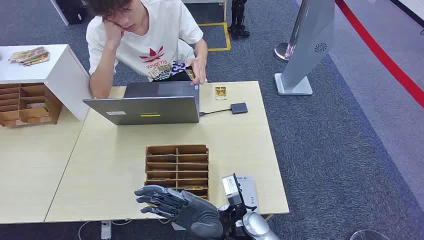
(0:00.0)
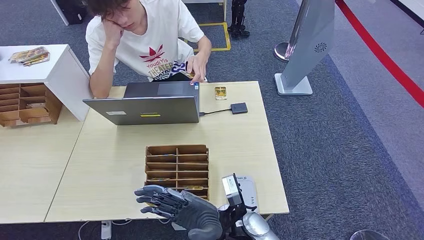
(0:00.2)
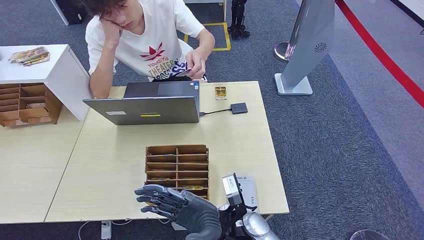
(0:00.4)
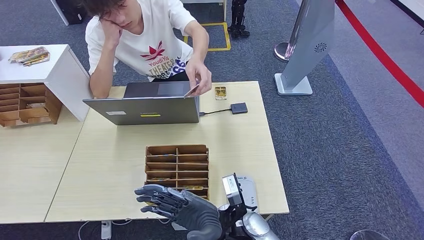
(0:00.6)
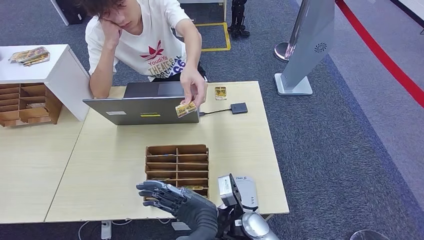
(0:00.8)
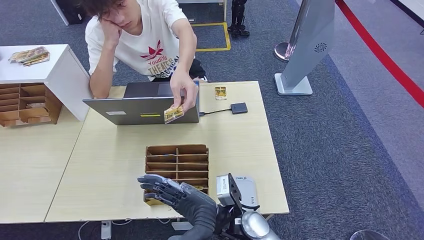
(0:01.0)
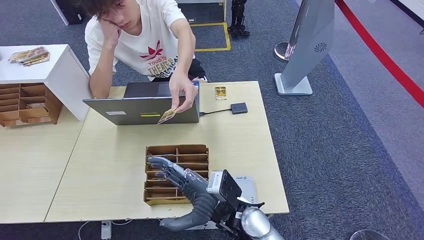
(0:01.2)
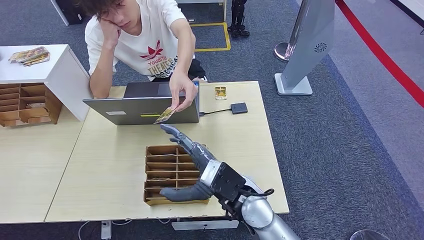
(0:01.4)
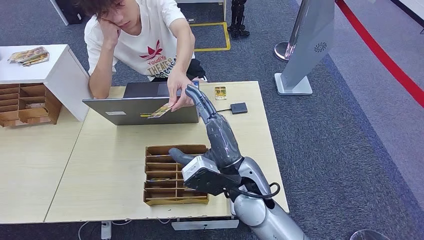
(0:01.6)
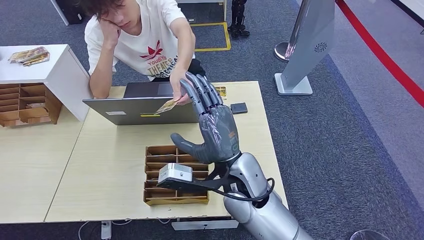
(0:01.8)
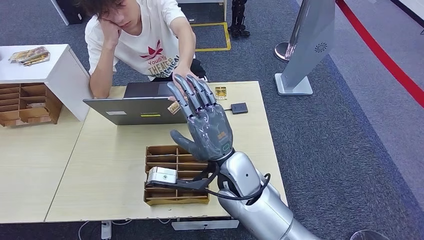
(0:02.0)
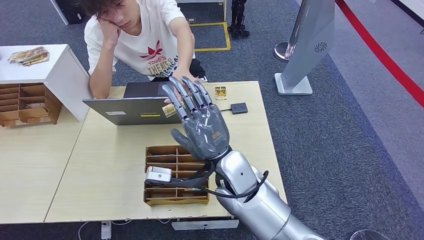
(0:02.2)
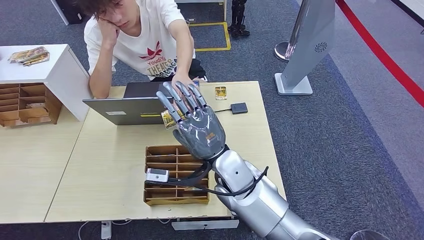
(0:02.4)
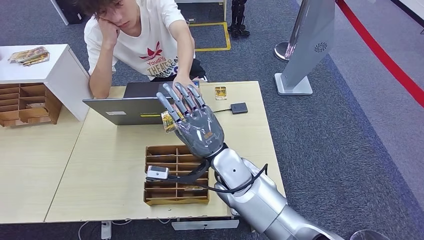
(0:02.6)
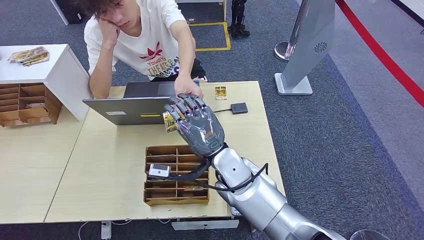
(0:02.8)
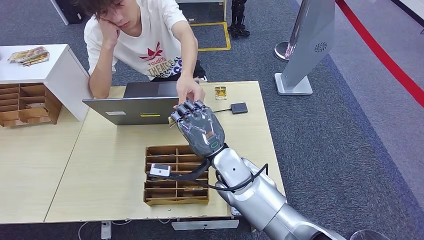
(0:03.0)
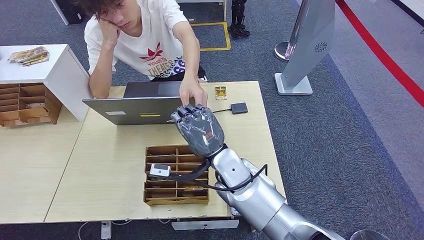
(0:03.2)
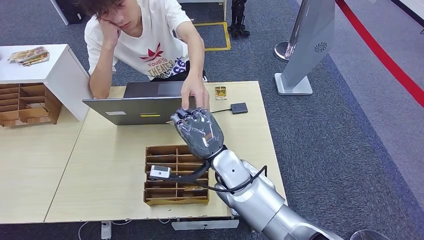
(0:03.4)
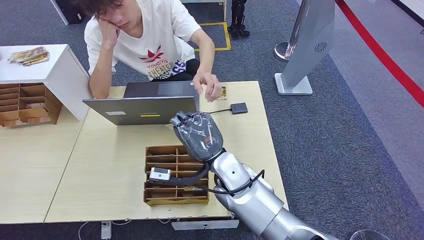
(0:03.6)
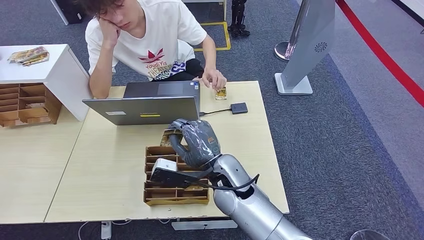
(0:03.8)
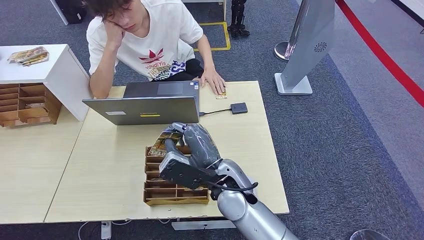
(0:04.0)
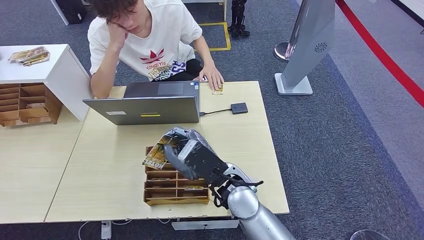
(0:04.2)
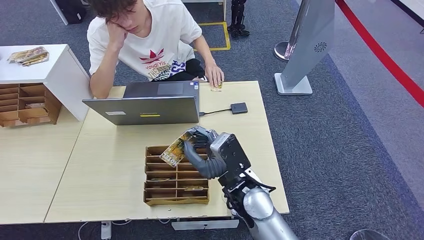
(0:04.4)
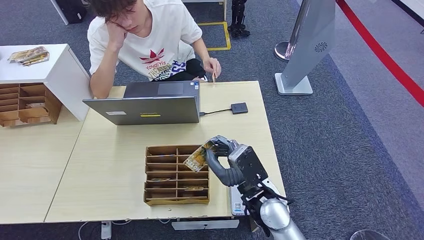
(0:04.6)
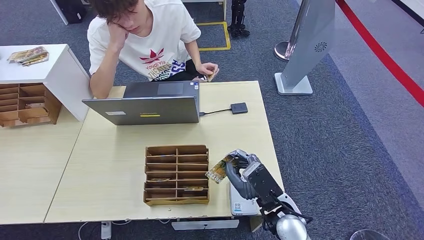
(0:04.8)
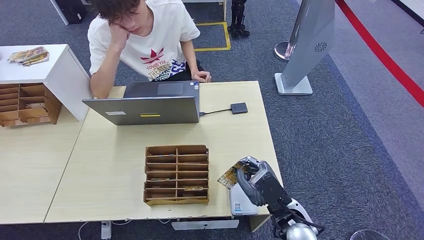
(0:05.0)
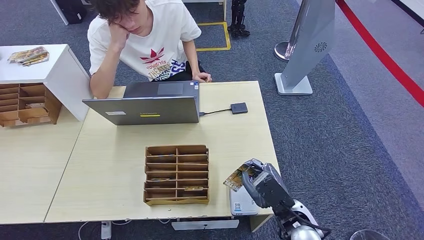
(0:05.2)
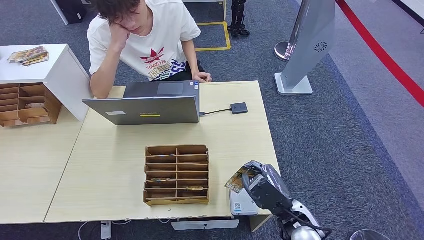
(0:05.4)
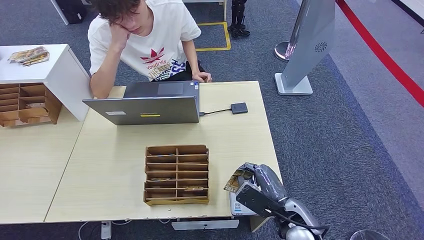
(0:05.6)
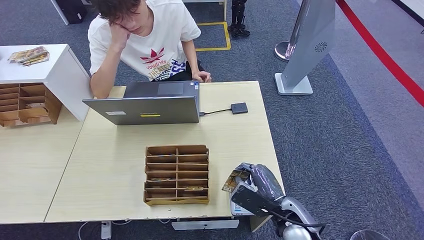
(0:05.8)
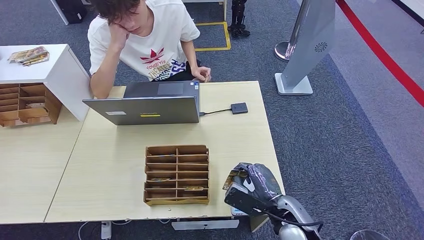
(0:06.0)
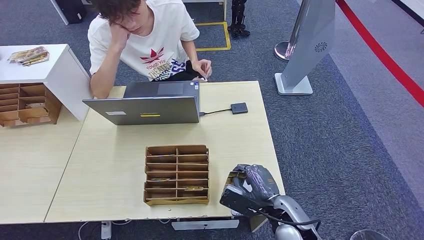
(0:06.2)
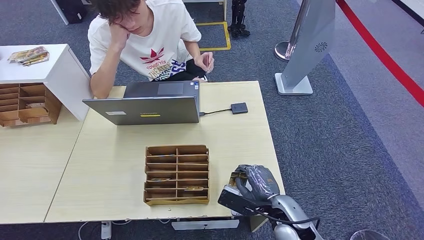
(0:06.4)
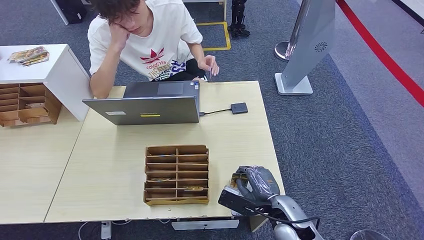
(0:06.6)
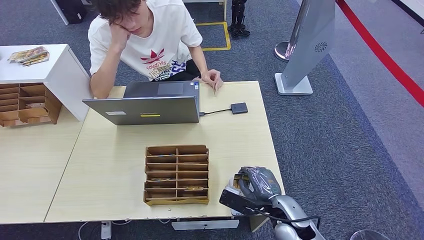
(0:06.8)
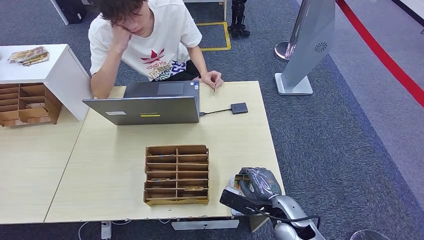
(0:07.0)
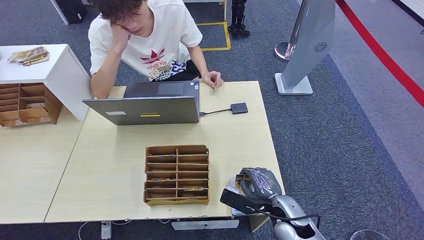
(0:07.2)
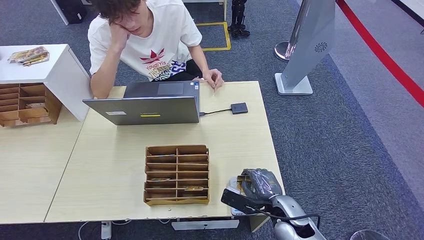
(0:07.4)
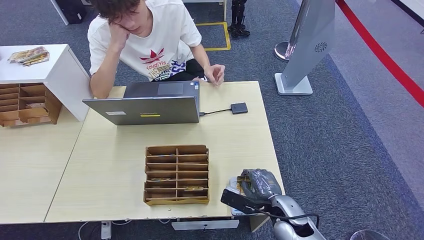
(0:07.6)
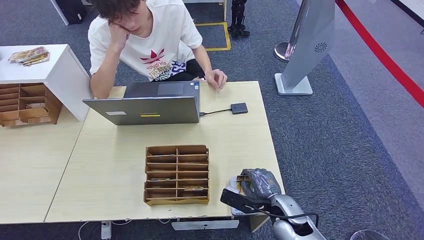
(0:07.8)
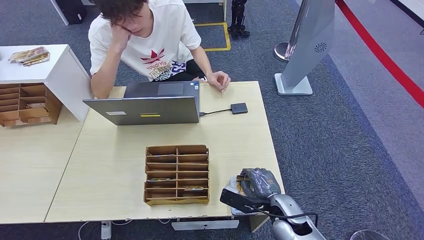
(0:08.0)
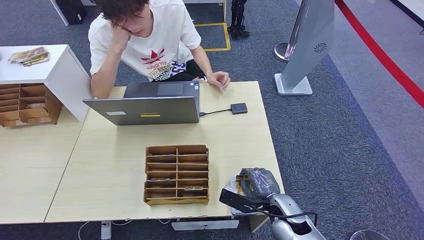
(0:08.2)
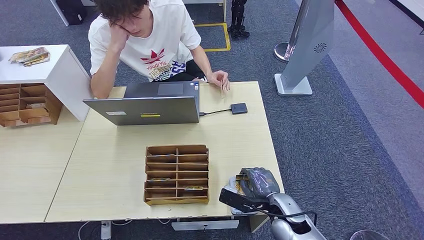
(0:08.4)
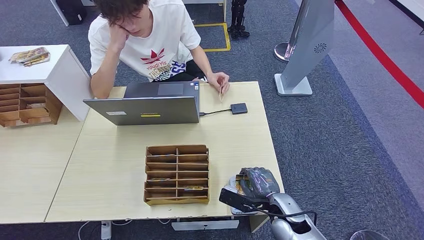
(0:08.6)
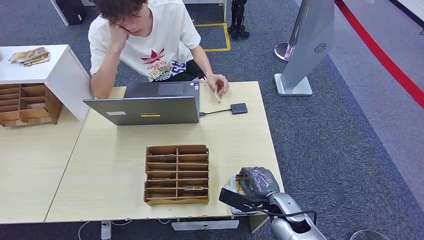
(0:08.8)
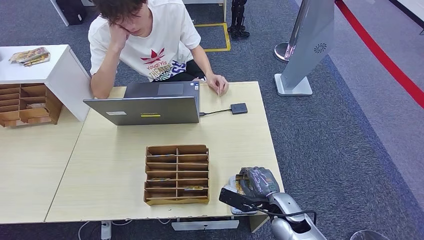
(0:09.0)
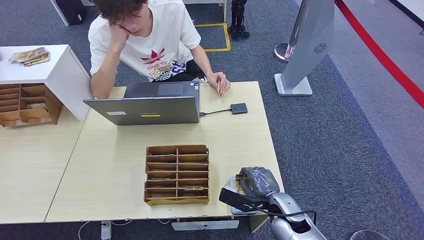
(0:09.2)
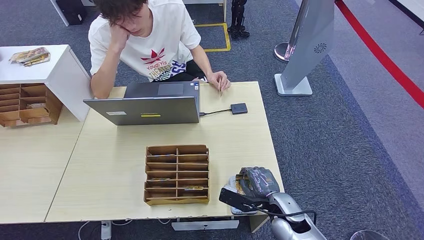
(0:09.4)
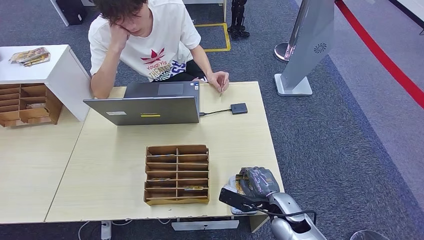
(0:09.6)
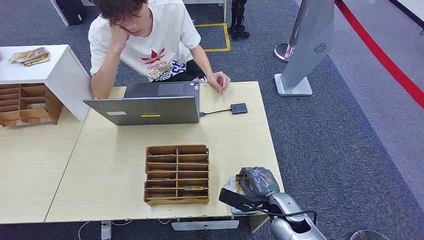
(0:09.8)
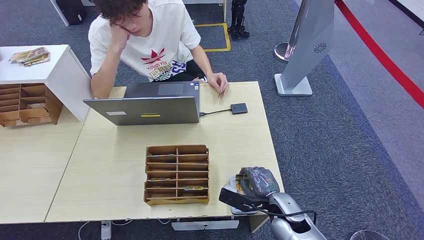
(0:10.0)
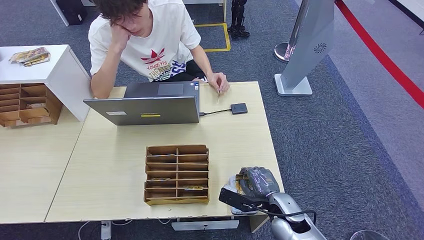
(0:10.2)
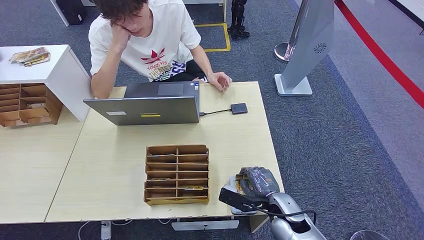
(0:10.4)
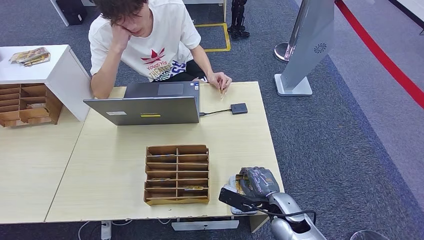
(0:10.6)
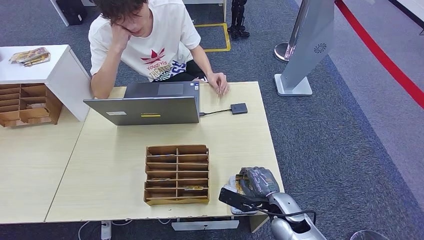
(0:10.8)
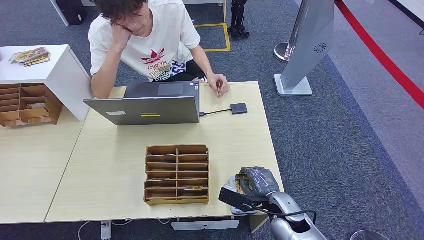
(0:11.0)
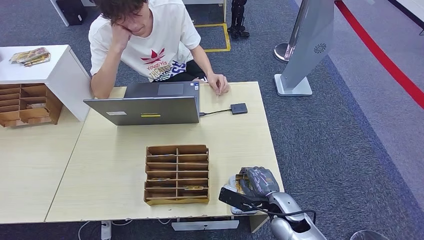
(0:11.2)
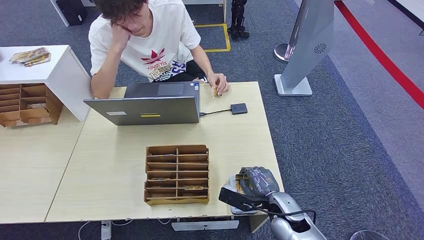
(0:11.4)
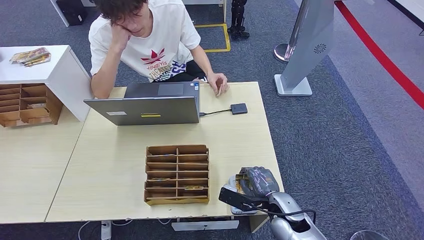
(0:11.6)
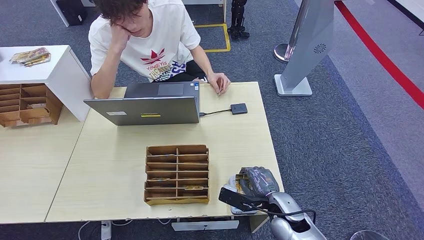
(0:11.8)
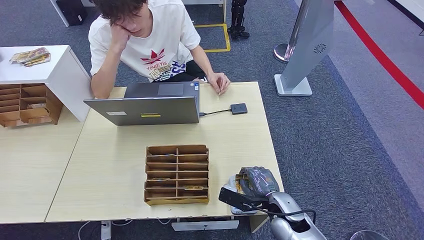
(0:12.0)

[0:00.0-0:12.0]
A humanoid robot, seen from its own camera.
Step, 0:00.0 to 0:04.6: Take the ID card from the person's hand.
Step, 0:04.8 to 0:09.2: Place the ID card on the card reader.
0:01.6 to 0:03.0: The right hand goes roughly 5 cm forward.
0:03.0 to 0:04.4: The right hand moves backward, roughly 5 cm.
0:04.4 to 0:06.0: The right hand is displaced to the right and downward by approximately 15 cm.
0:07.6 to 0:12.0: The two hands keep their place.

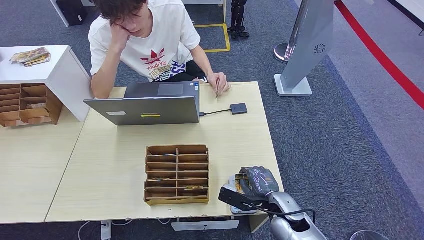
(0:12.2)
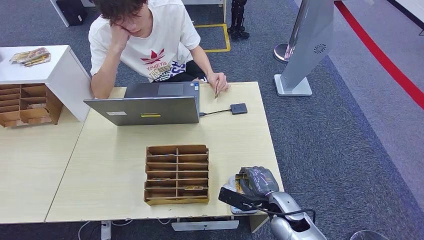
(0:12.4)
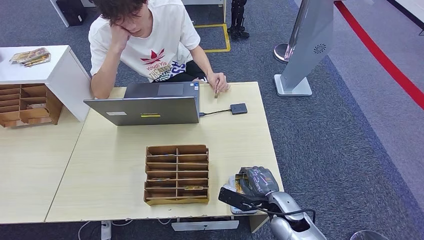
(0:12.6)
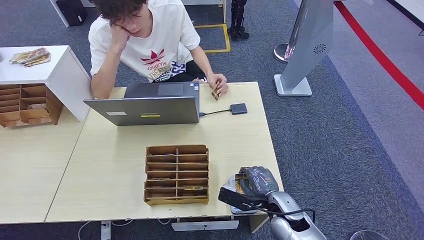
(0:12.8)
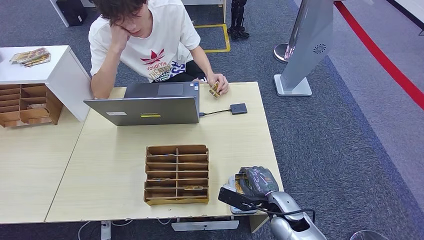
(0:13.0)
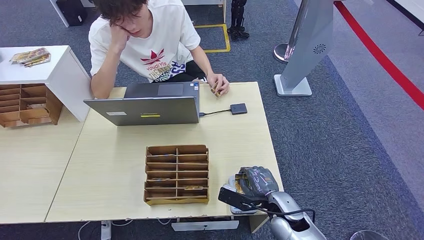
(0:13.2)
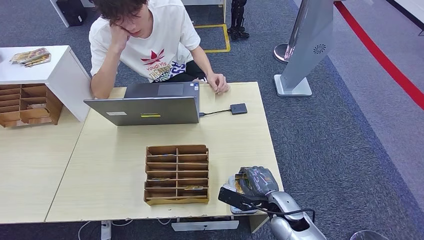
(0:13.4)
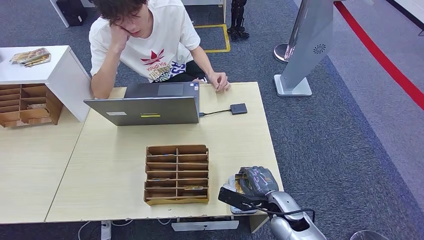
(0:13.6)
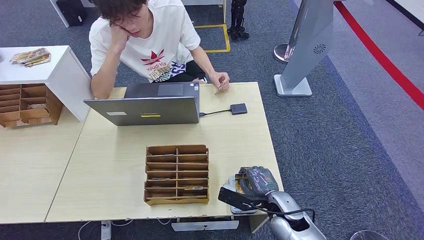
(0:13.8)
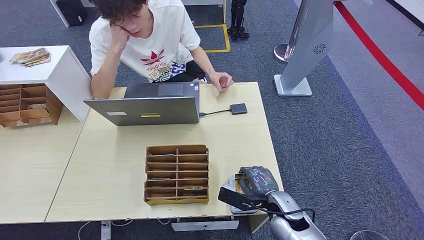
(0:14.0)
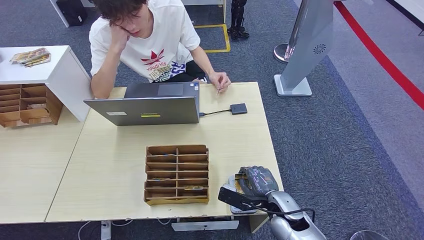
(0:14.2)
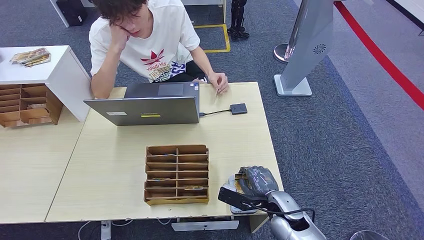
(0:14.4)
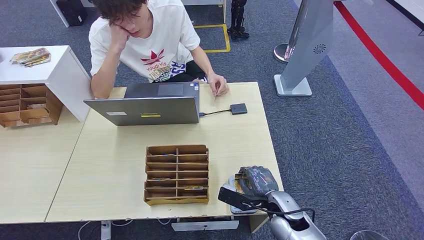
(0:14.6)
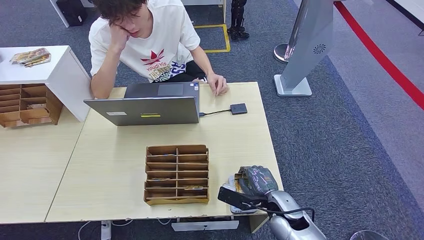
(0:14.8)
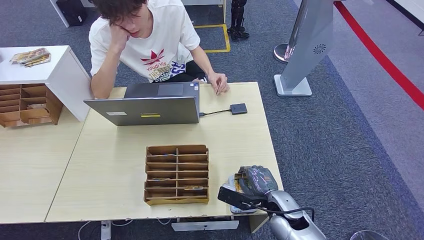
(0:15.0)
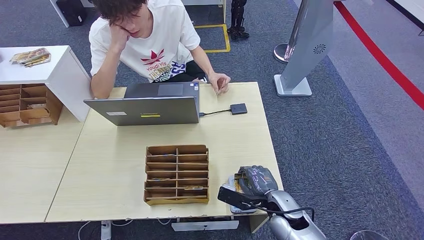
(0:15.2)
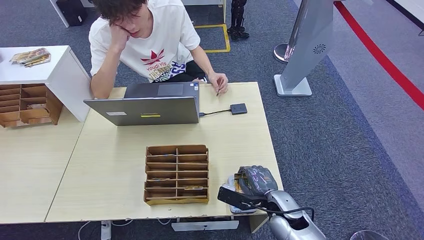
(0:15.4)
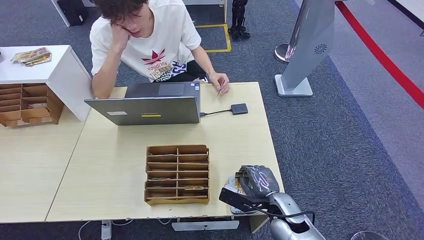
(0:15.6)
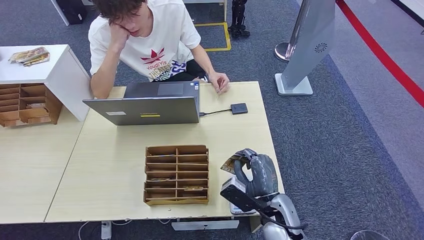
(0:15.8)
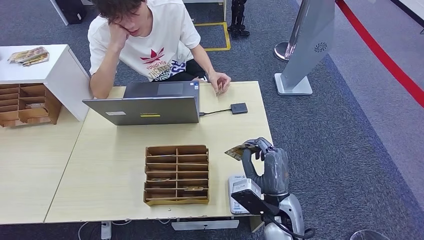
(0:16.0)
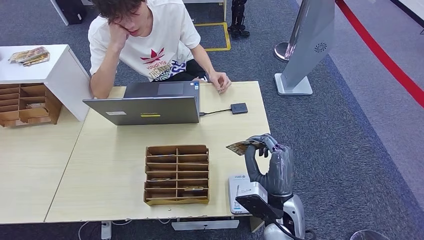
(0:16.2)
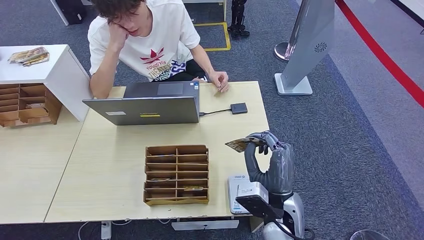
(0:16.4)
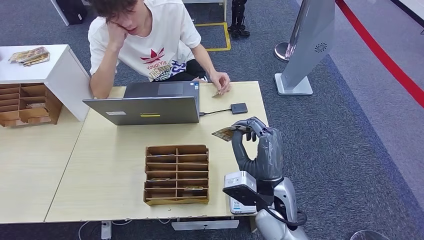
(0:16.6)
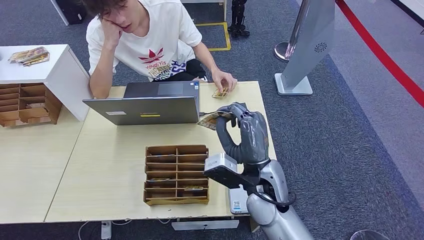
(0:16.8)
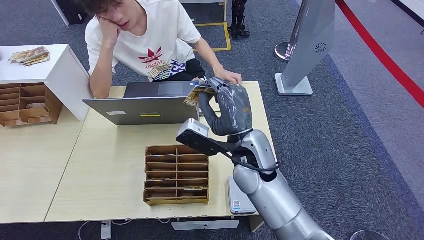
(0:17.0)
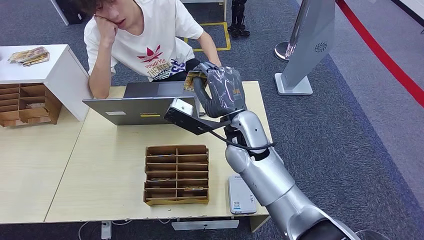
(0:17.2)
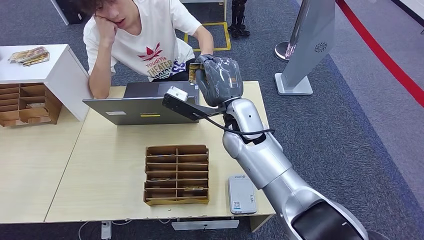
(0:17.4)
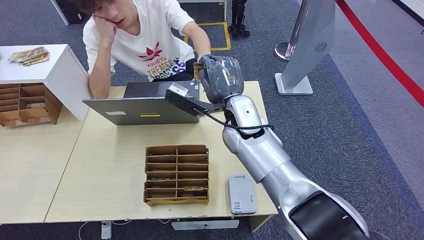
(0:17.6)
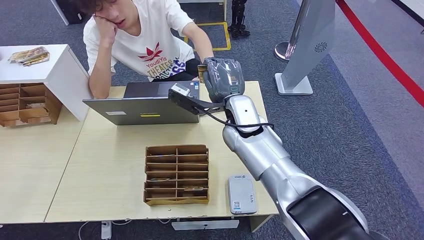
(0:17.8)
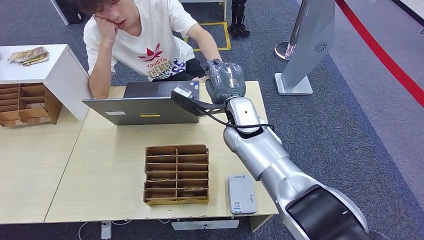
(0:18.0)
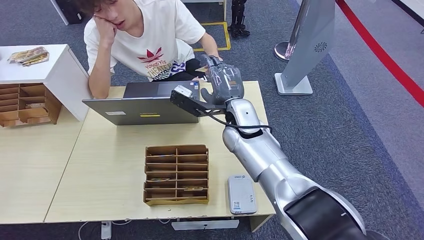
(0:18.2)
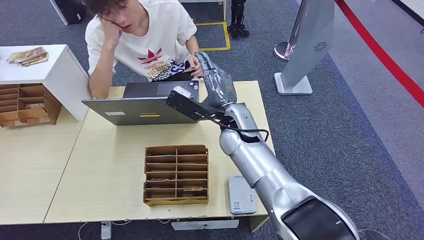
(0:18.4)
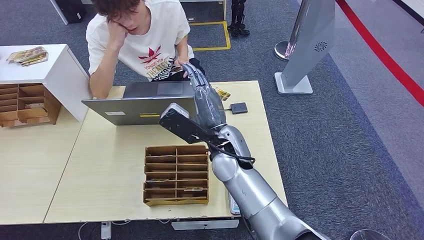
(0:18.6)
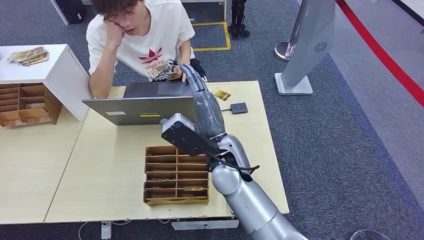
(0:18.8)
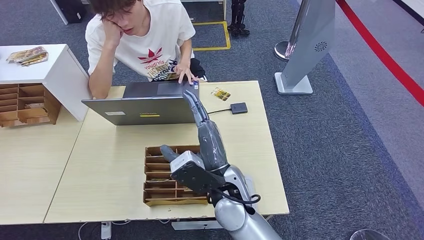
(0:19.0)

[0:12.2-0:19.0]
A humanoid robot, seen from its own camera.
0:12.2 to 0:15.0: Both hands stay about where they are.
0:15.0 to 0:16.2: The right hand shifts roughly 10 cm upward and to the left.
0:16.2 to 0:17.6: The right hand travels forward, upward and to the left by some 25 cm, while the left hand is displaced forward by roughly 5 cm.
0:17.6 to 0:19.0: The right hand moves backward and downward, about 15 cm.
